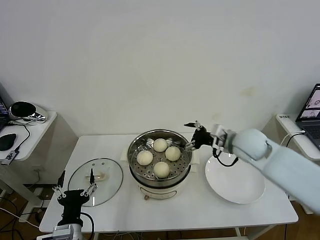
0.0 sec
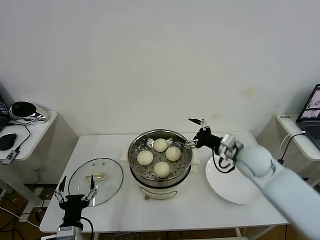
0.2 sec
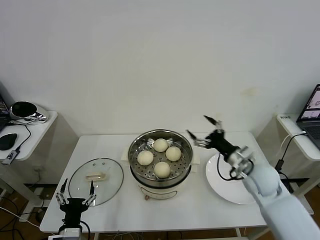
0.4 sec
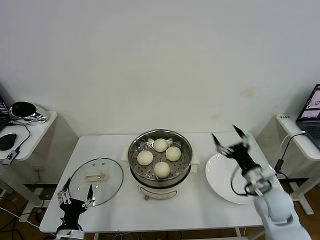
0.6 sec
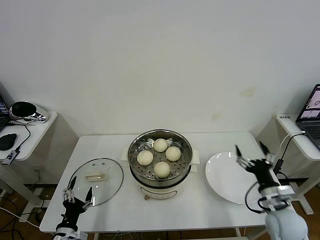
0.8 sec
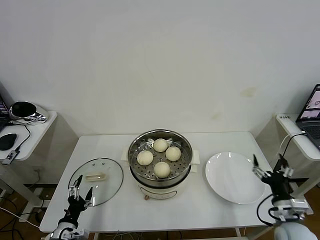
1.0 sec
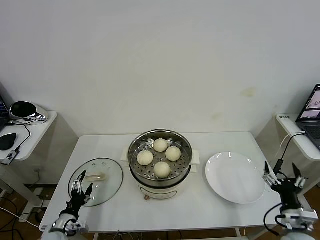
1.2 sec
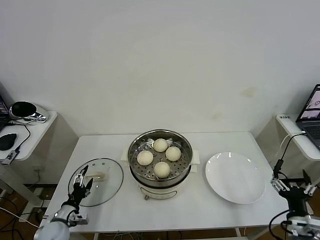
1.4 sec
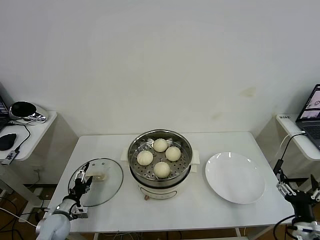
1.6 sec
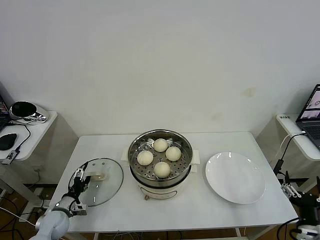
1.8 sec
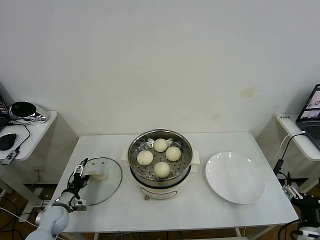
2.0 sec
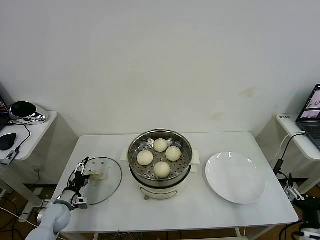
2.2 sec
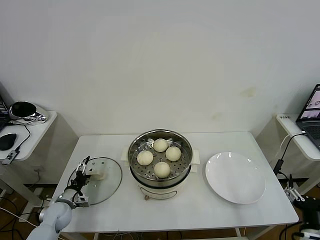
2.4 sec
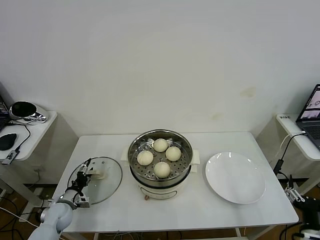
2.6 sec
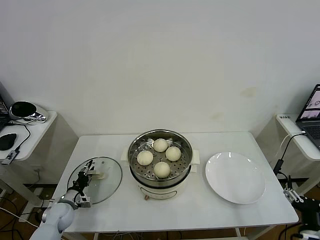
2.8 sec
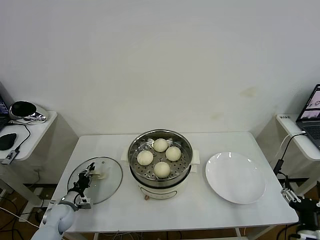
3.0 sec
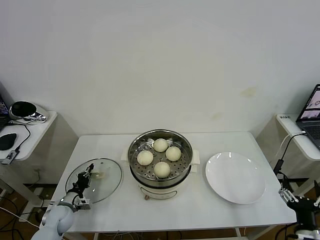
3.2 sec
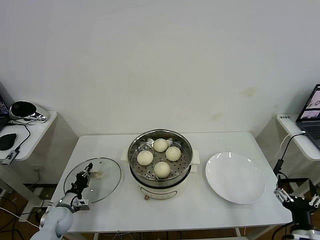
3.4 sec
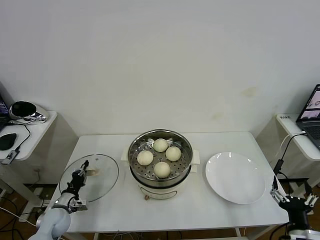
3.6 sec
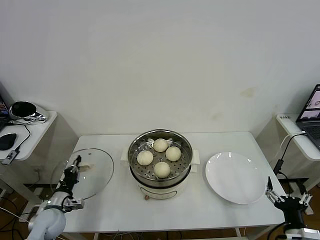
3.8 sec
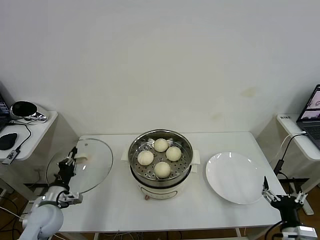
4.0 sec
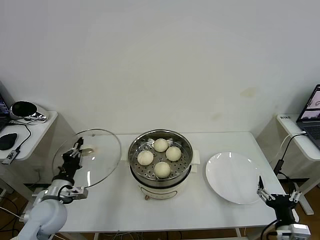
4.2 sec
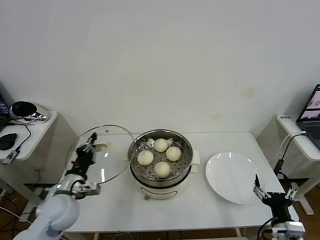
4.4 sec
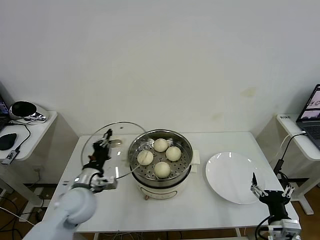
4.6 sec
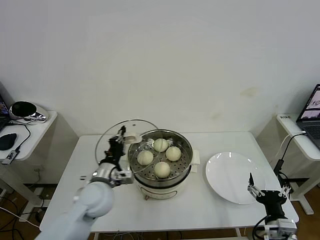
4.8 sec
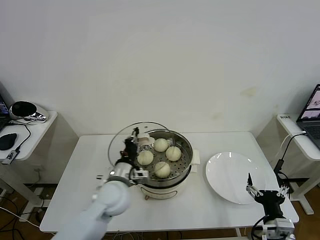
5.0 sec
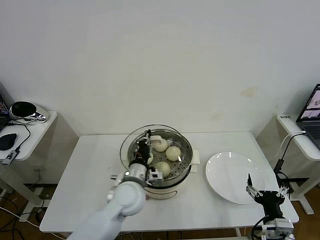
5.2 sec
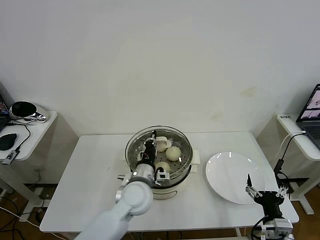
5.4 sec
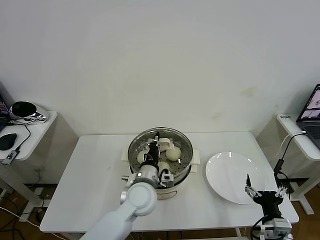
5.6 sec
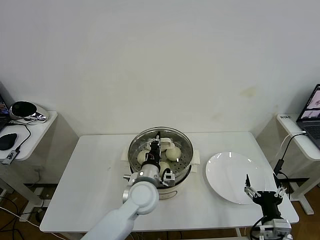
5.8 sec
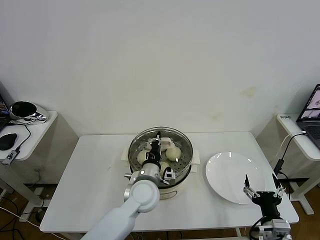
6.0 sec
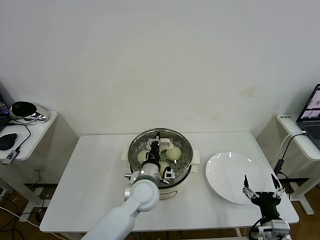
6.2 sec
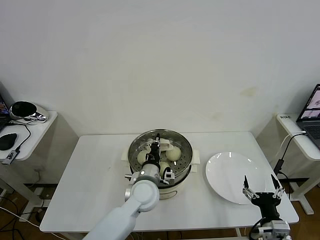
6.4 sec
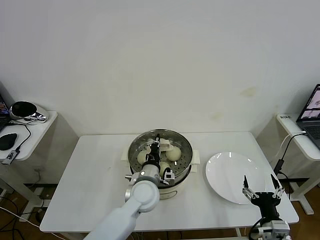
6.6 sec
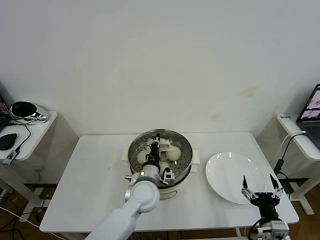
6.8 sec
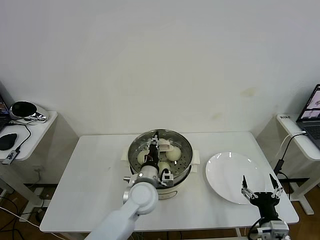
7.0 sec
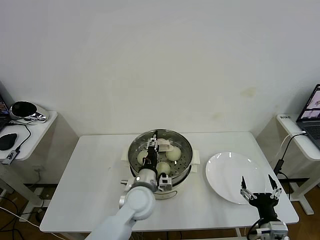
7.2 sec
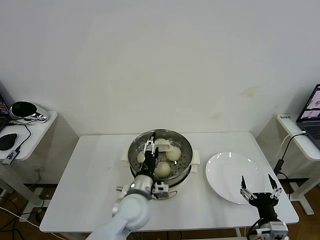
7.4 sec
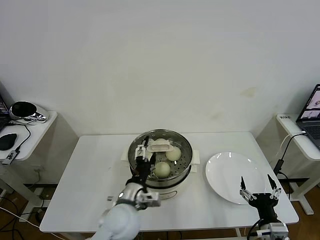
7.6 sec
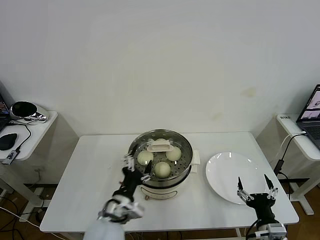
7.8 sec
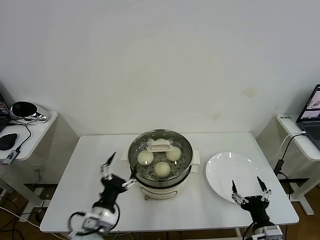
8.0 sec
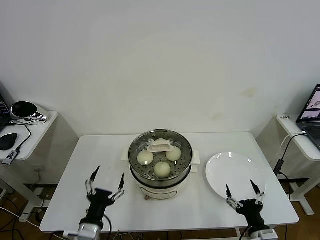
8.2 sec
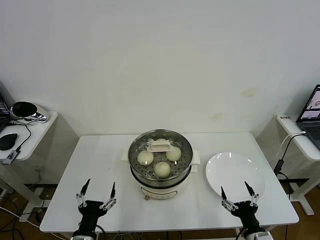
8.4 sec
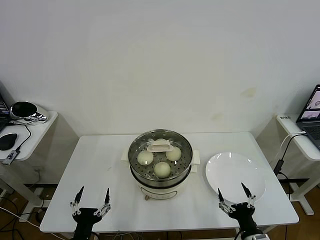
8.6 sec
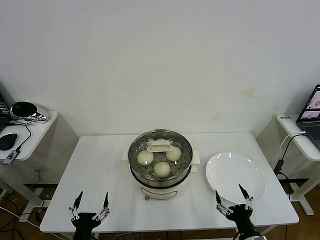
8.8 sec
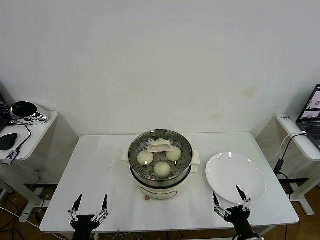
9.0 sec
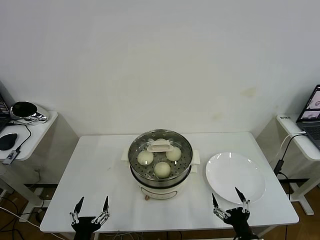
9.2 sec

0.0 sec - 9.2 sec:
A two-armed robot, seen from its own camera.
Task of the whole recording: take steamed baozi put them in steamer then cover it.
Step, 0.0 sec - 3.2 sec: Grasp the pot lid with left gripper.
Step, 3.4 sec - 7.2 sec: Place the pot lid on the steamer with left gripper.
0.0 sec - 1.6 sec: The left gripper travels to the left, downward and forward by some 20 cm; the right gripper heads backward, downward and to the right, covering approximately 35 cm.
1.6 sec - 3.0 sec: The left gripper shifts roughly 5 cm forward, and closes its fingers.
3.0 sec - 4.6 sec: The left gripper goes roughly 25 cm upward and to the right. Meanwhile the right gripper moves some 5 cm.
4.6 sec - 6.2 sec: The left gripper heads to the right, covering approximately 20 cm.
6.2 sec - 7.6 sec: The left gripper shifts about 5 cm backward, and opens up.
7.6 sec - 9.2 sec: The left gripper goes about 25 cm backward, to the left and downward, while the right gripper moves roughly 5 cm.

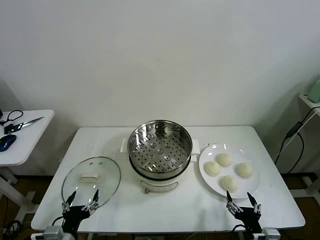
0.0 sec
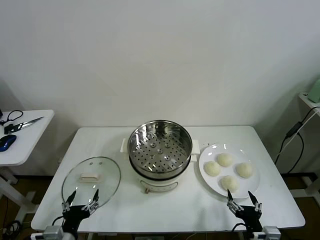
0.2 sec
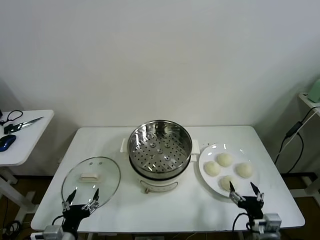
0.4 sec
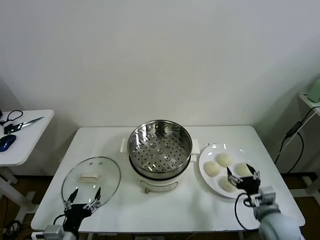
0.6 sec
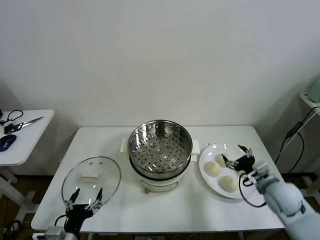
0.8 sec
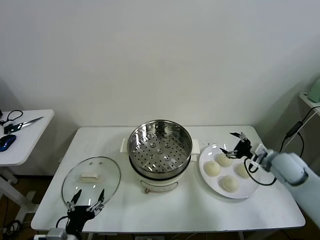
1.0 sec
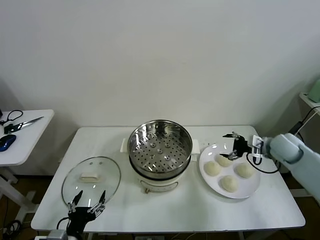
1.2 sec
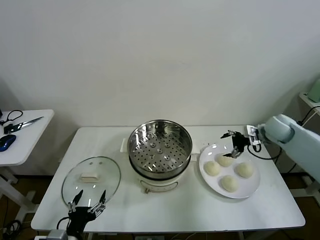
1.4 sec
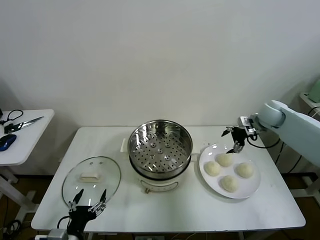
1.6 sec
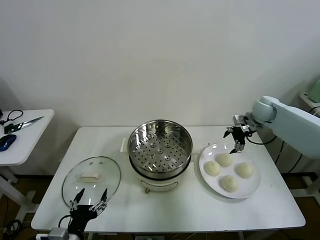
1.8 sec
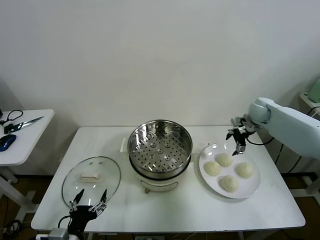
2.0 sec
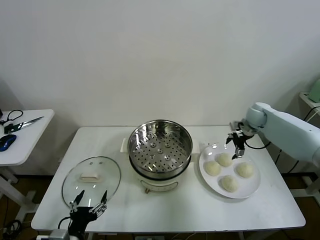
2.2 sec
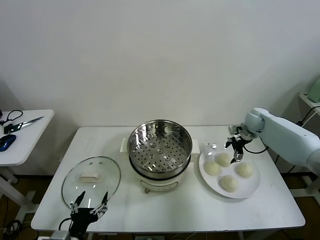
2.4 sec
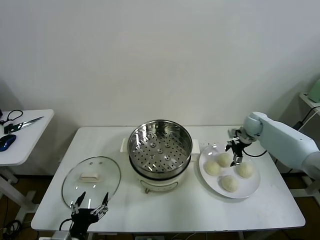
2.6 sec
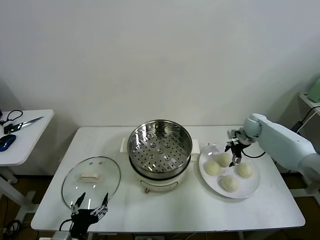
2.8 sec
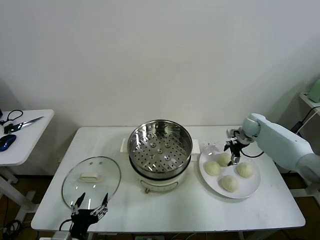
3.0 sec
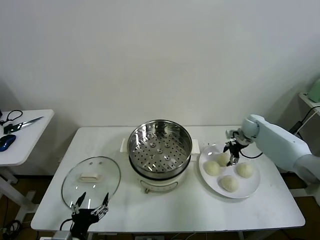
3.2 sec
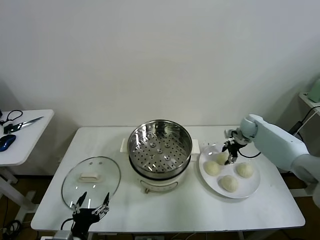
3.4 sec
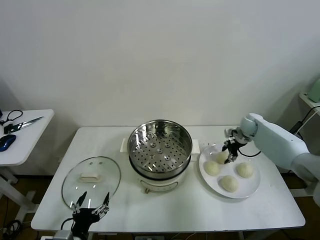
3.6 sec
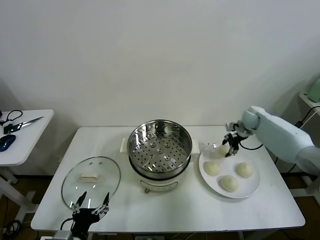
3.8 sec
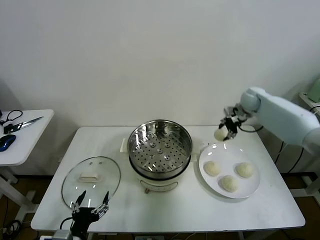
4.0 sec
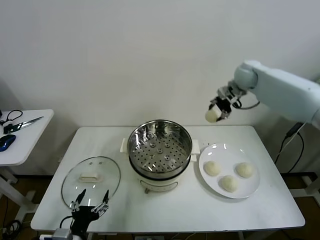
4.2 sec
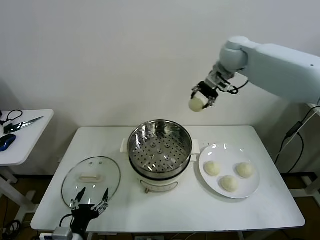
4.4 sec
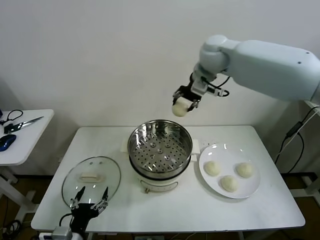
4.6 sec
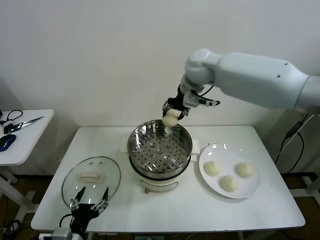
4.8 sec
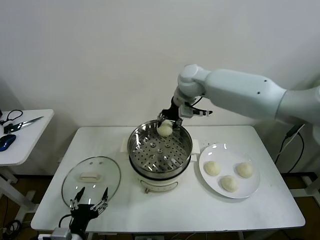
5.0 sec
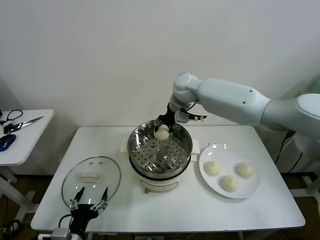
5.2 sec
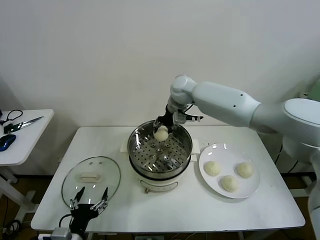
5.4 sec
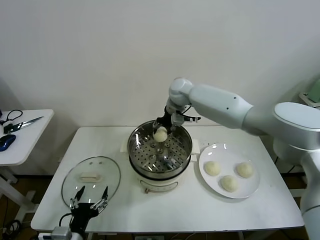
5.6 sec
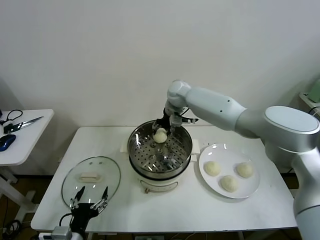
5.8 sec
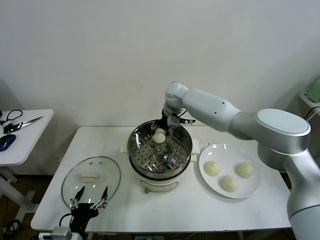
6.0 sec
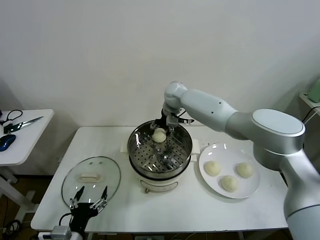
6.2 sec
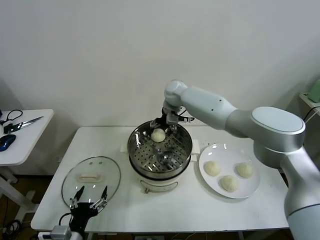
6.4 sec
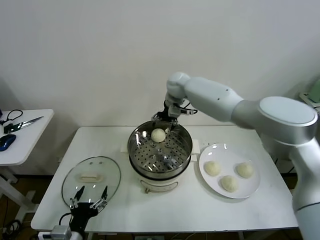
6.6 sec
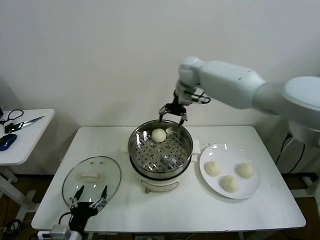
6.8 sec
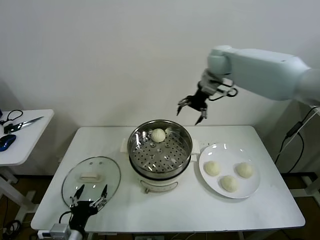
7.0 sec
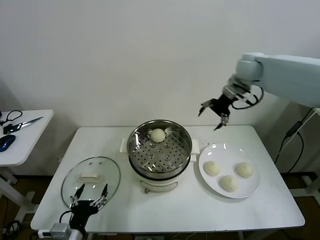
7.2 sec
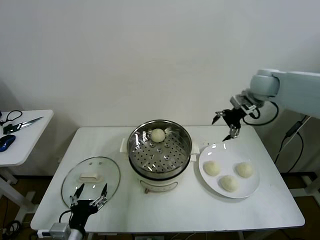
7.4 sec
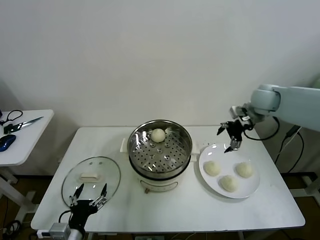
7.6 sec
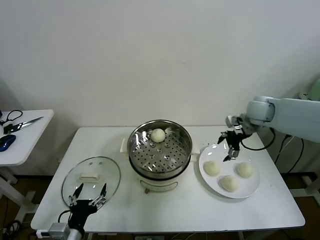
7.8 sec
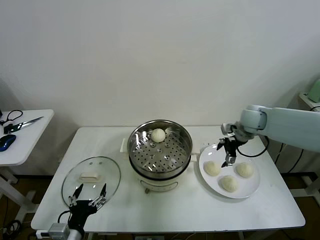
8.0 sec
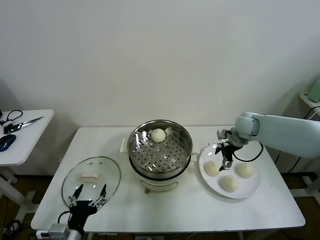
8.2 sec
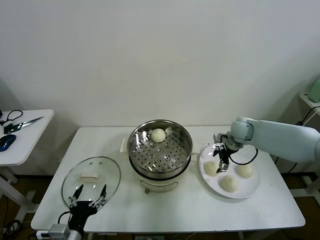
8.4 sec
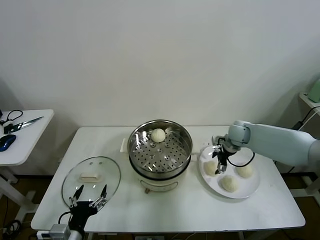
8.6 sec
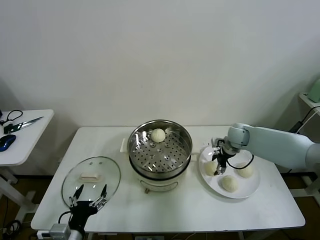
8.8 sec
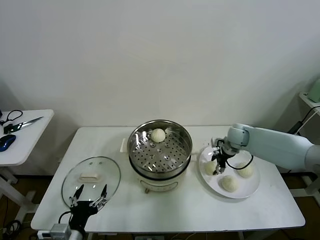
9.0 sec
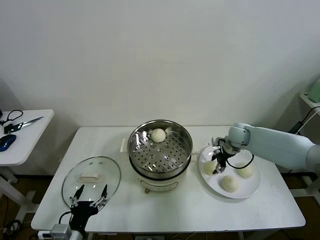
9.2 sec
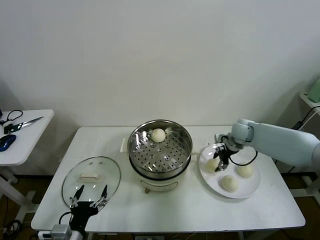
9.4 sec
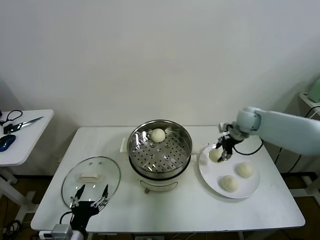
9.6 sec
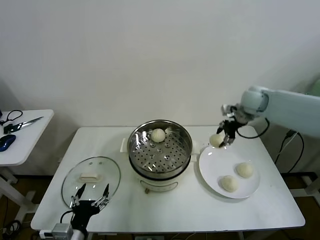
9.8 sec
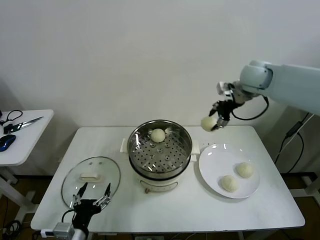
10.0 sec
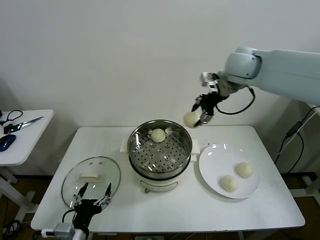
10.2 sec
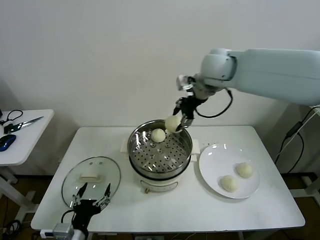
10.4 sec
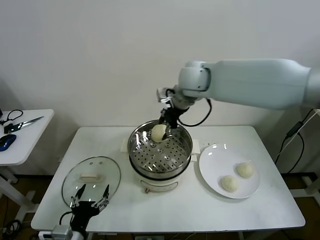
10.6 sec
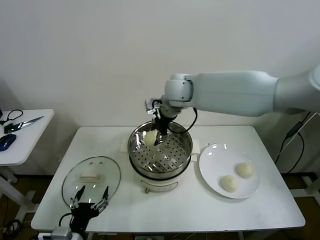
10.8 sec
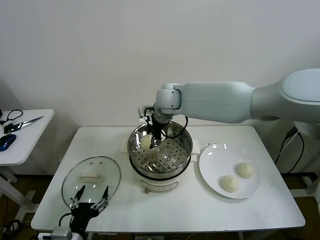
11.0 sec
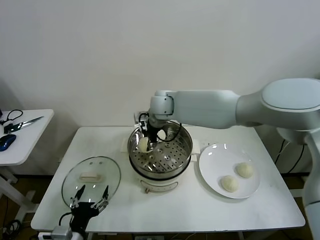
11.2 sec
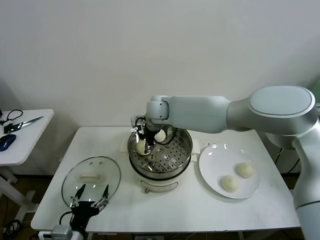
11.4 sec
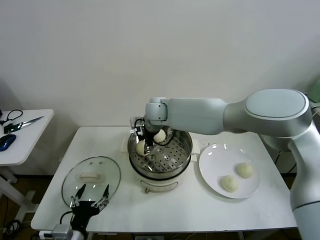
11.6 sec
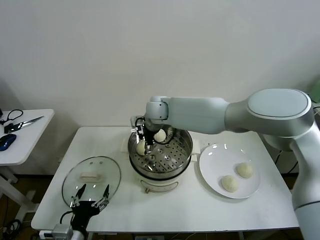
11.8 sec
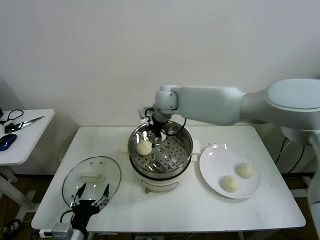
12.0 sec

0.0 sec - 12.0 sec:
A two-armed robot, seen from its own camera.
Task of the whole recording: take steamed baozi put them in steamer then cover it.
Step, 0.0 sec - 3.4 sec: Grasp the baozi in the plate with right gripper.
Step, 3.6 sec - 6.2 sec: Place the baozi on the steamer with right gripper.
Step, 6.4 sec - 8.8 sec: Grasp the baozi in the plate with right gripper.
Step, 9.0 sec - 11.8 sec: Place the baozi on the steamer with right gripper.
1.6 sec - 3.0 sec: The right gripper travels downward by approximately 10 cm.
3.0 sec - 4.4 sec: The right gripper goes approximately 40 cm upward and to the left, and closes up.
4.4 sec - 6.0 sec: The right gripper heads downward and to the left, covering some 20 cm.
6.0 sec - 7.6 sec: The right gripper heads to the right, covering about 30 cm, and opens up.
7.6 sec - 9.0 sec: The right gripper travels downward by some 15 cm, and closes.
9.0 sec - 10.4 sec: The right gripper moves upward and to the left, roughly 35 cm.
10.4 sec - 12.0 sec: The right gripper shifts approximately 10 cm downward, and opens up.
